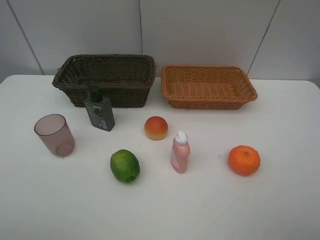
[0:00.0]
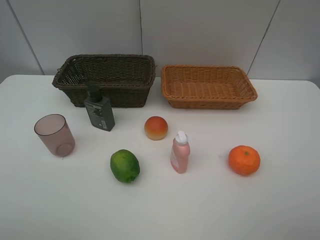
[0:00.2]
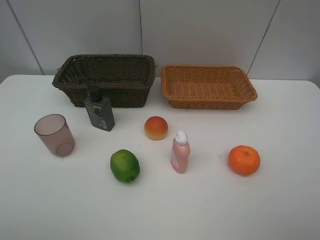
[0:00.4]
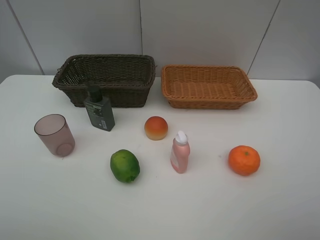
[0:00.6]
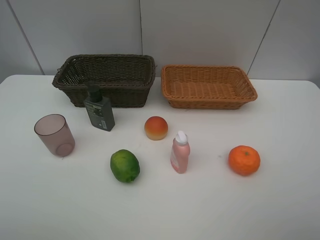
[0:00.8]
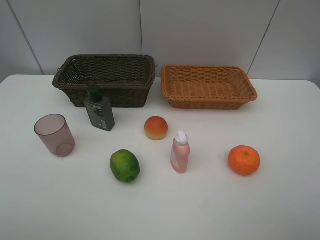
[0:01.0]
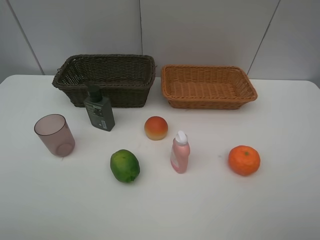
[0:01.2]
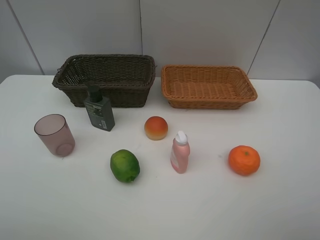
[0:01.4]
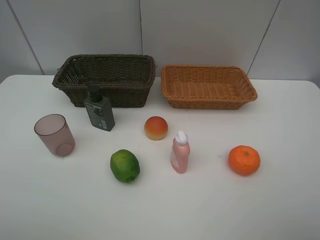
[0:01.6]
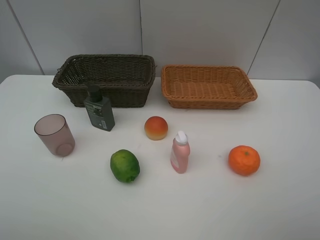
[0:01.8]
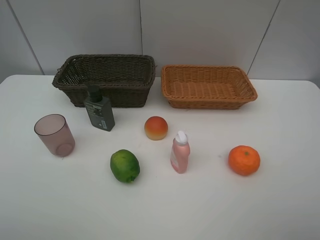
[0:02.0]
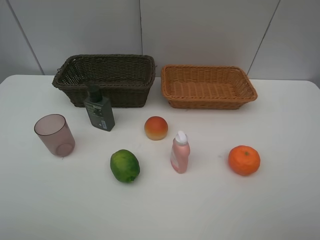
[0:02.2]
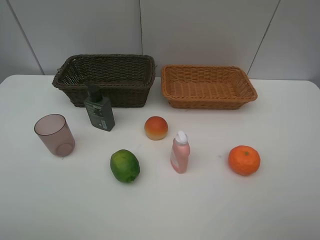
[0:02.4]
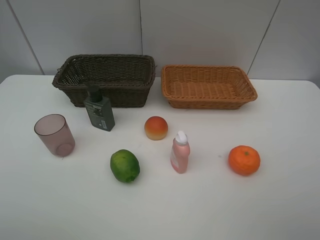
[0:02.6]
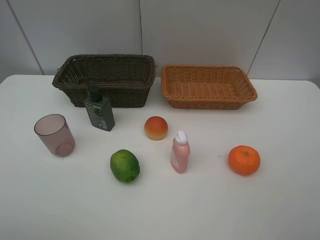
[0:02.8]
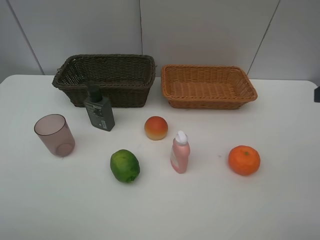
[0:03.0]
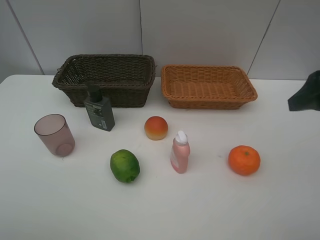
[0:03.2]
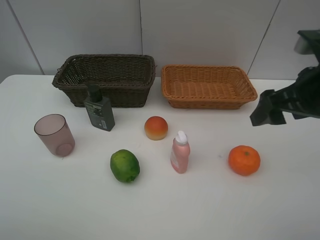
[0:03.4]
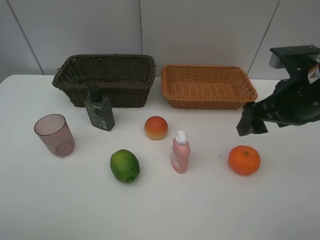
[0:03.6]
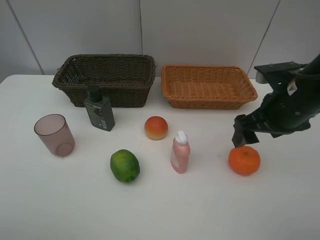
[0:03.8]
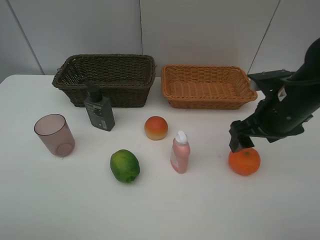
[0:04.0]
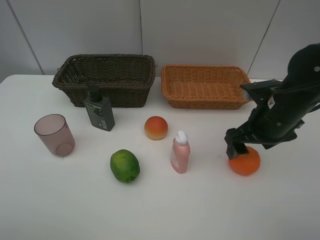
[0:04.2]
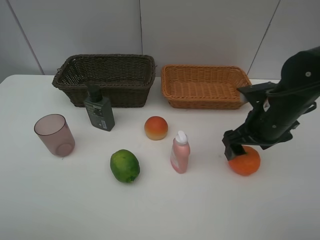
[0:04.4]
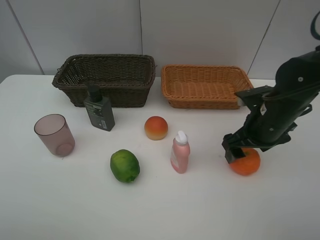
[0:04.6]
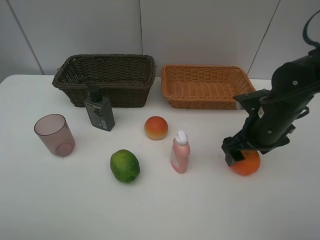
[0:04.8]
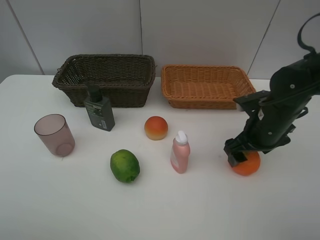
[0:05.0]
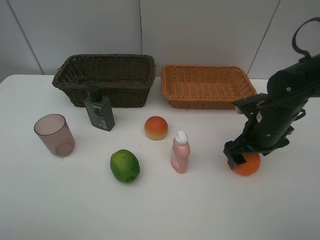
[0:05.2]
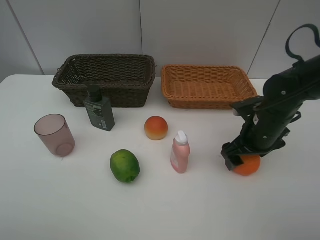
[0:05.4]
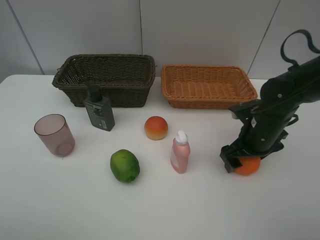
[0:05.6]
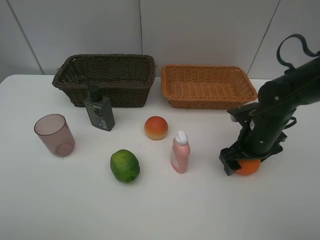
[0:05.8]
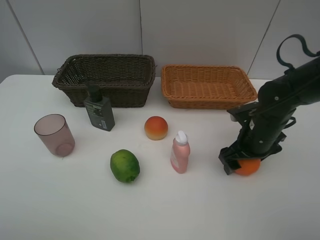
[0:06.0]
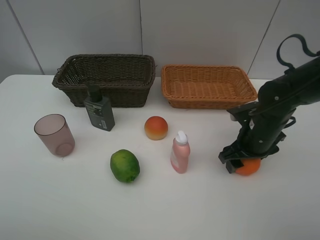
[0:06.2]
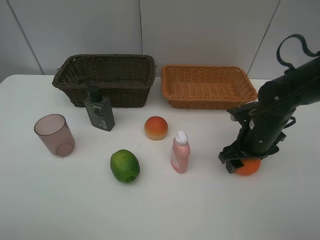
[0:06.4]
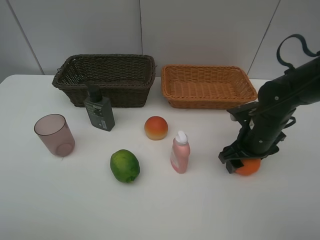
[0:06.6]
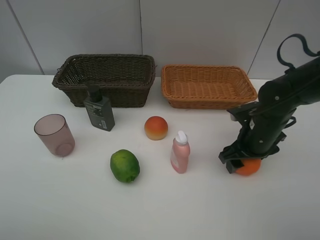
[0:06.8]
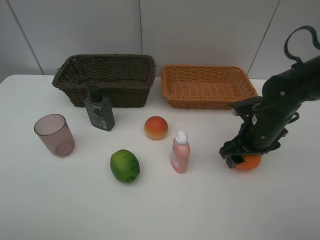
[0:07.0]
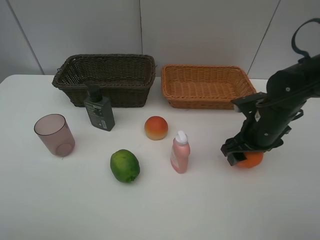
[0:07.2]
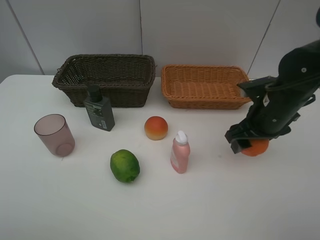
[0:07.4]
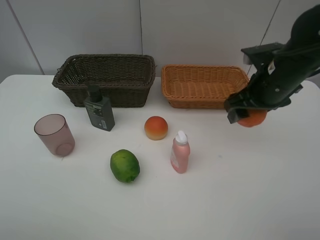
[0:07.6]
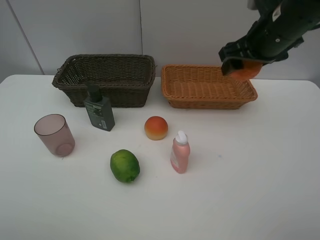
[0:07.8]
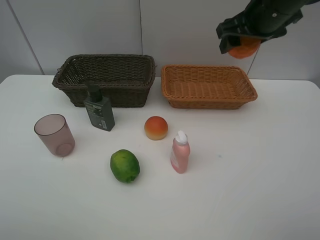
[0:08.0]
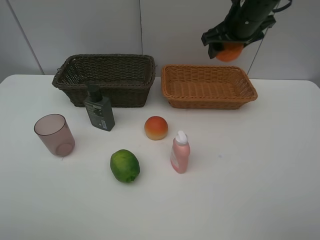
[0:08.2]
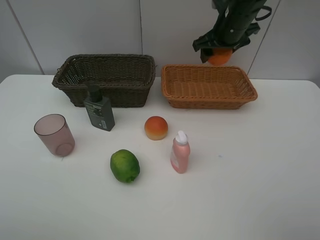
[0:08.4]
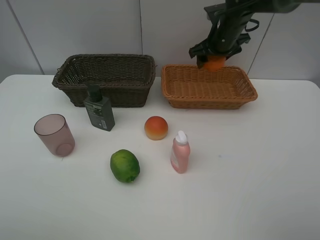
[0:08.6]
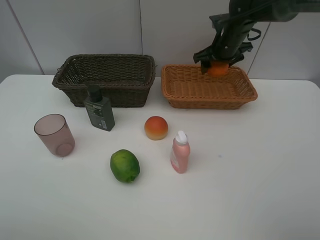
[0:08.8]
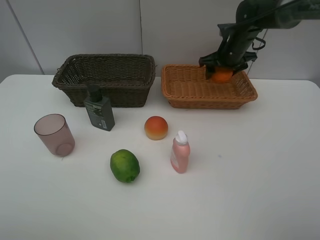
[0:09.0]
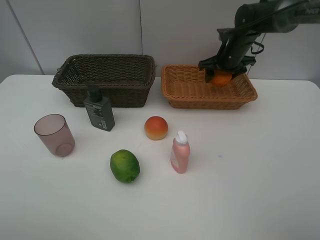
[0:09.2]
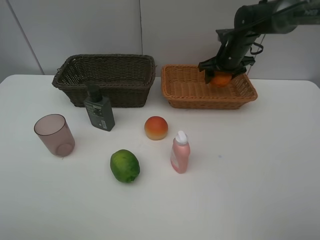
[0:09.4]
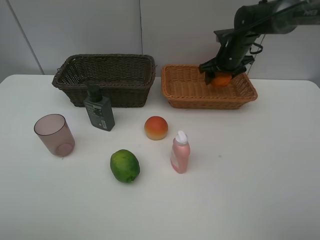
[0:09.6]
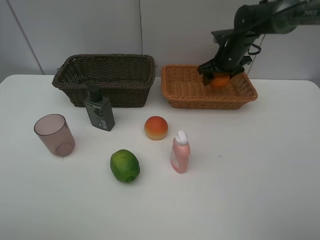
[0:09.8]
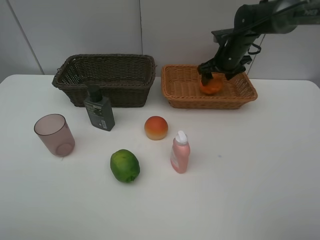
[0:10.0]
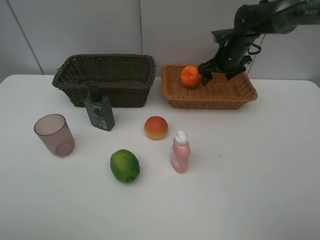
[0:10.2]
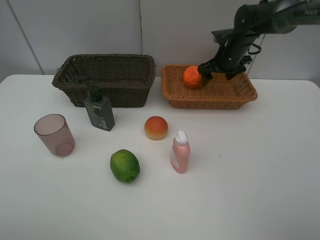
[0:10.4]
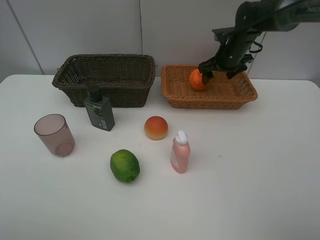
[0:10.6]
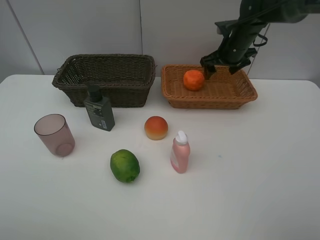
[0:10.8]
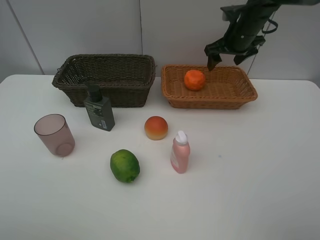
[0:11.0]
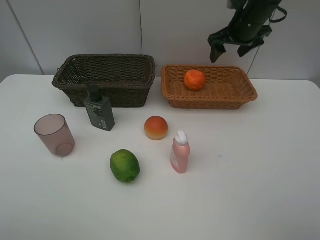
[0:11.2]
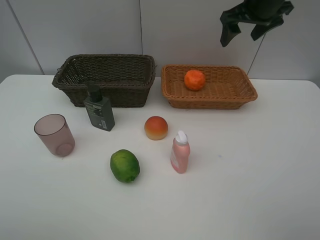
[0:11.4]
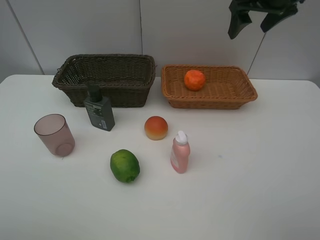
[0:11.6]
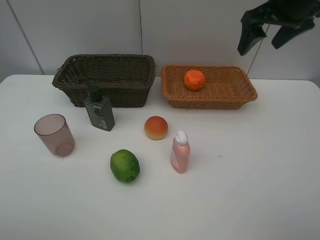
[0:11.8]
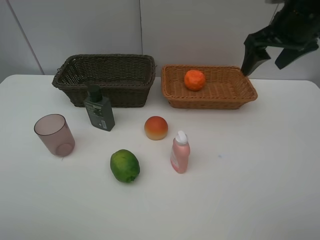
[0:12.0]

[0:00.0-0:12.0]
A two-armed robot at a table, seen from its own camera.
Task of the whole recording: place multiple objects separately in different baskets.
0:00.0 to 0:01.6: Neither gripper changes place.
0:03.0 to 0:04.4: The right gripper shifts approximately 20 cm downward, forward and to the left.
0:04.4 to 0:06.0: The right gripper is displaced downward by roughly 5 cm.
0:06.0 to 0:07.6: The right gripper is displaced upward by roughly 10 cm.
0:07.6 to 0:09.0: The right gripper is displaced forward by about 20 cm.
0:09.0 to 0:10.4: The grippers move only a little.
0:10.4 to 0:12.0: The right gripper goes roughly 20 cm backward and upward.

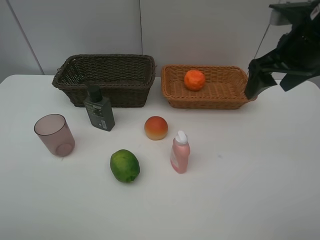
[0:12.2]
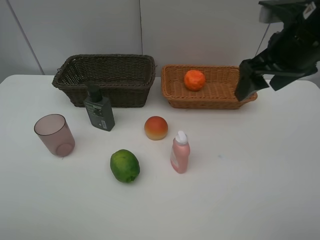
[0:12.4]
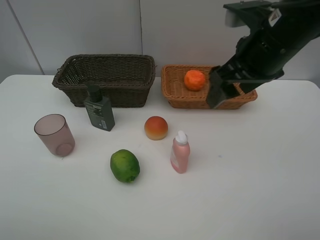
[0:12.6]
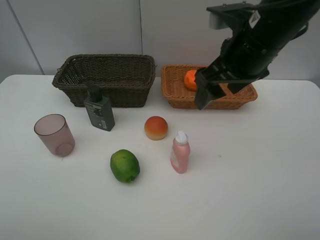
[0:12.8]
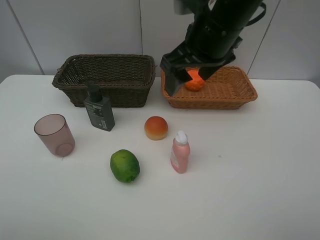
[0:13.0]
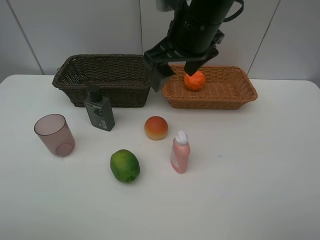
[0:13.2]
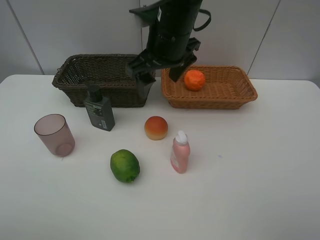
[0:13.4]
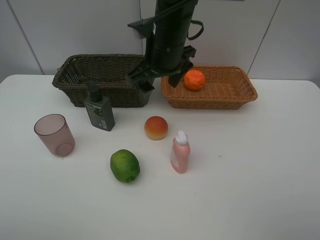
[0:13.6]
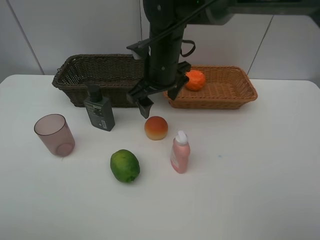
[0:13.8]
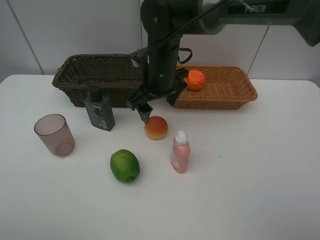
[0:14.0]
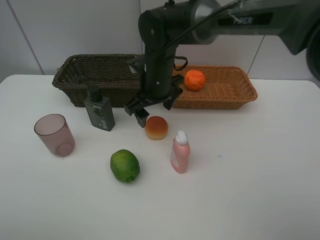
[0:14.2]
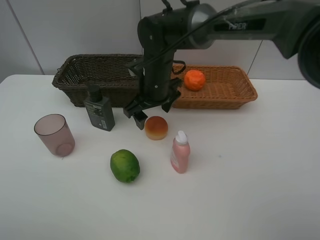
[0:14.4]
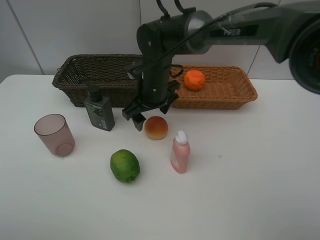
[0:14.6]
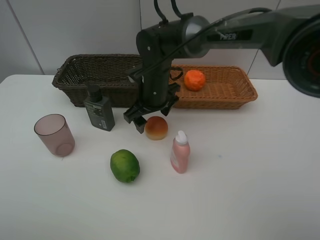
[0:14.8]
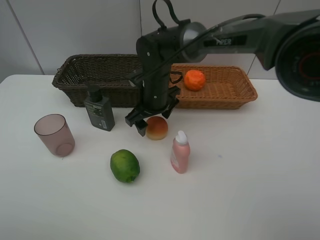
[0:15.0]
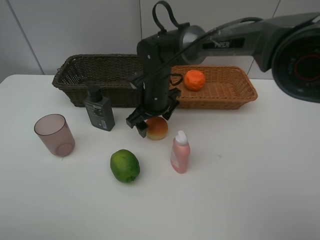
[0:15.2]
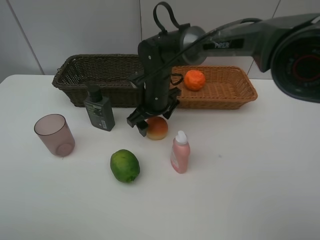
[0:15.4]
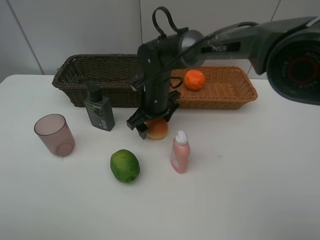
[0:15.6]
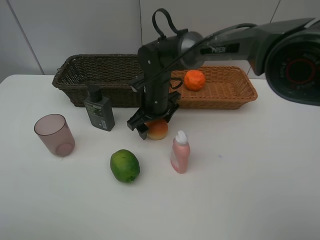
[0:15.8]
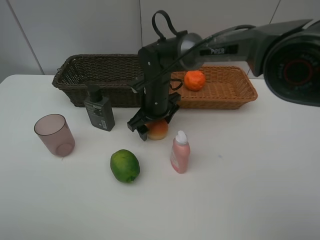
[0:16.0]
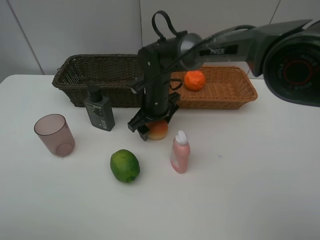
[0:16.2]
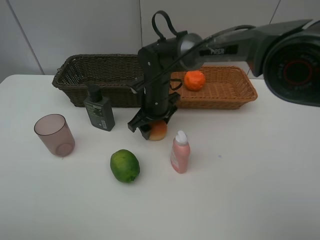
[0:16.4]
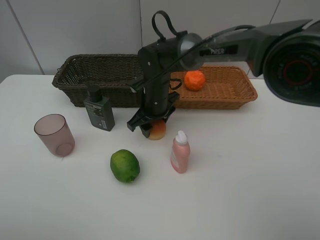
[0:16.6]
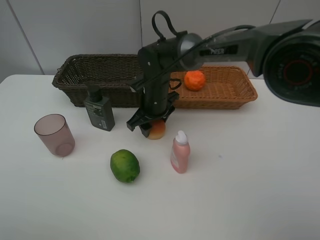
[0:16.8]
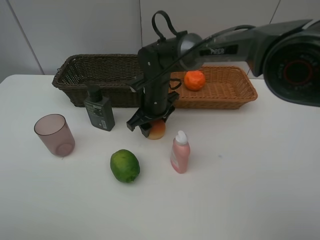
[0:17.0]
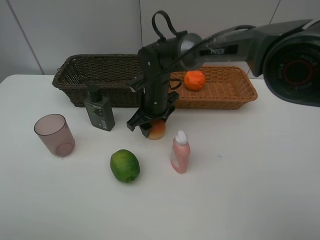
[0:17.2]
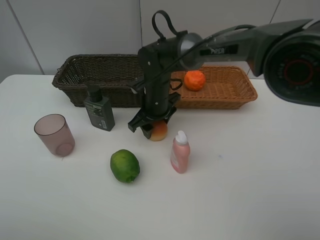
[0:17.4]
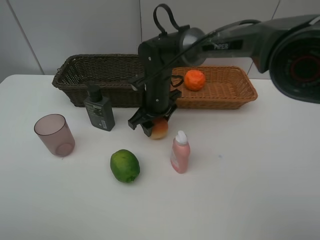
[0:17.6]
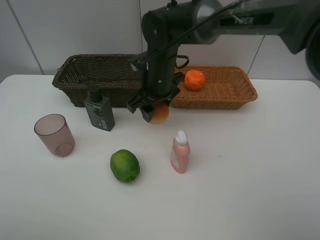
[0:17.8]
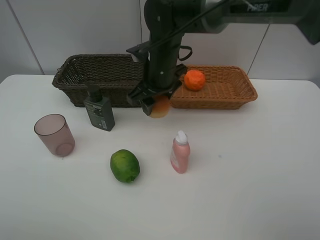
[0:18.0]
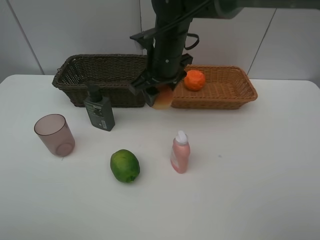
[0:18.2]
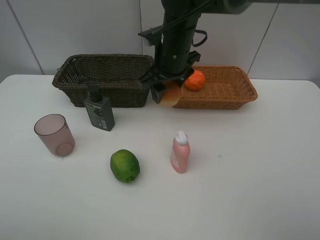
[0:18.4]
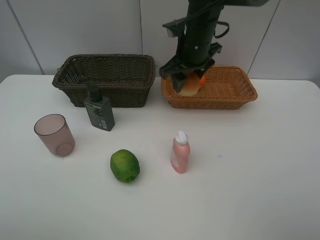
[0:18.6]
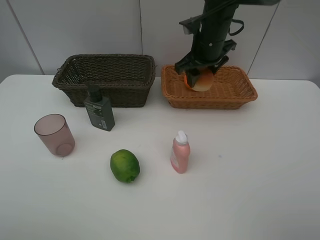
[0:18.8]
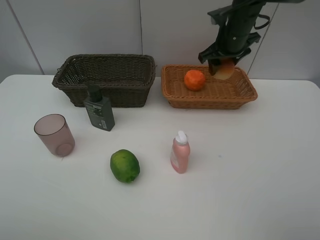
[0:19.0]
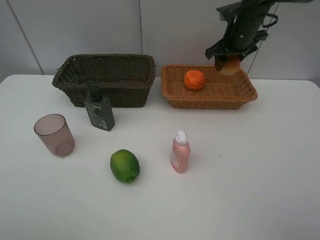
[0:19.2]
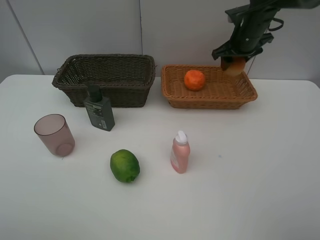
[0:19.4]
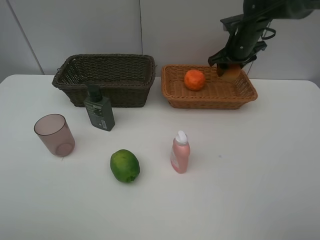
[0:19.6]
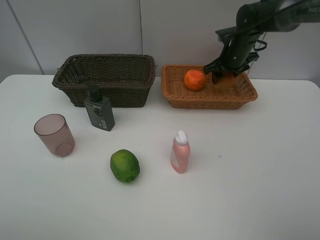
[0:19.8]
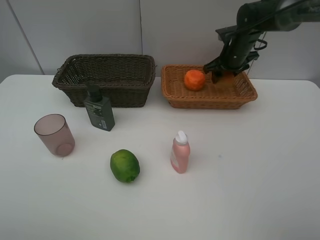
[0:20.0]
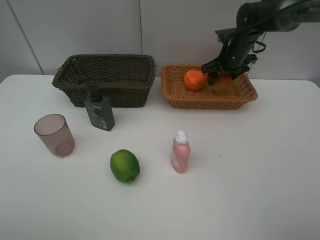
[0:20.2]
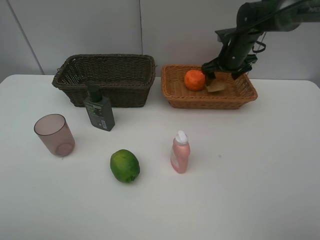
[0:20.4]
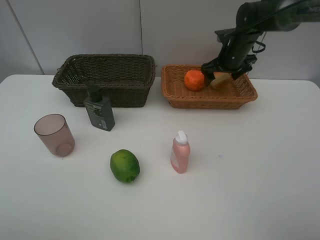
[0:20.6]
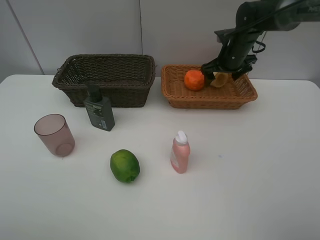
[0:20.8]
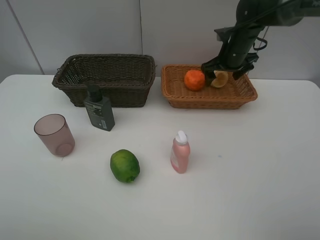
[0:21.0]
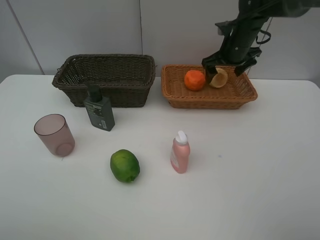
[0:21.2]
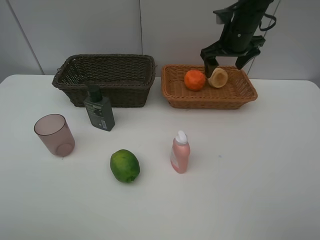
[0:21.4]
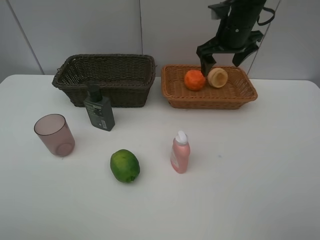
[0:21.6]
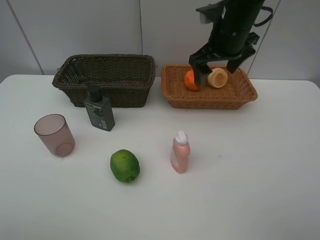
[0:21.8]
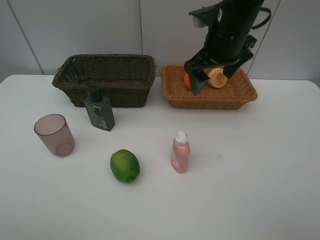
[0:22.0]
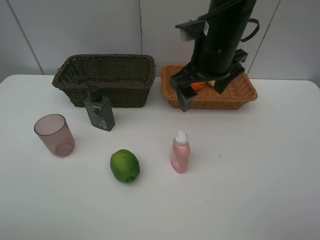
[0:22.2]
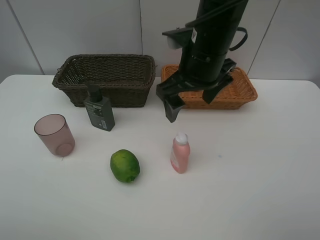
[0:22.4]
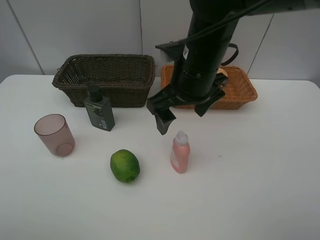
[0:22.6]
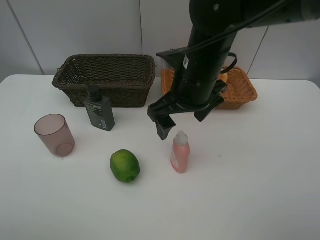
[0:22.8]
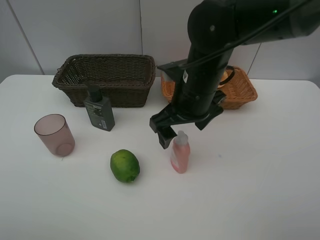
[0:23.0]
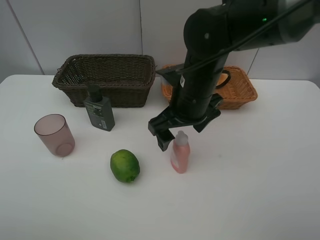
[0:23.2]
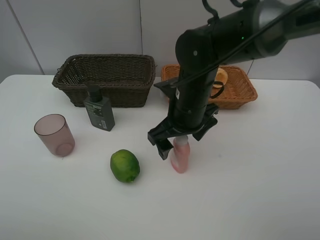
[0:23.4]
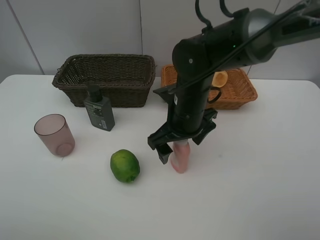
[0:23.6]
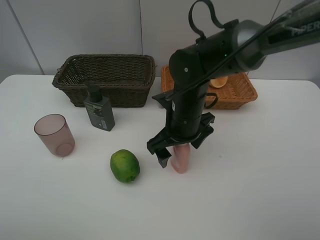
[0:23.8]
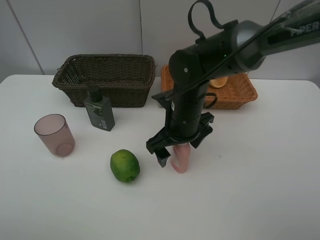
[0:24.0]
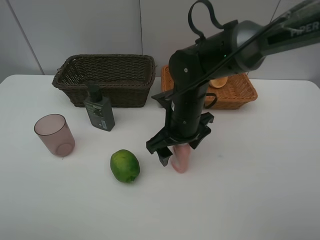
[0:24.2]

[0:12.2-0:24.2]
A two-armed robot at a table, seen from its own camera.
Task of the whole recording: place multiple objects separately in different baskets.
0:12.2 to 0:13.8: The right gripper heads to the left and downward, covering some 25 cm.
0:13.8 to 0:15.2: The right gripper shifts some 10 cm downward.
0:15.2 to 0:16.6: The right gripper closes its fingers.
0:16.6 to 0:18.2: The right gripper shifts about 10 cm upward.
0:18.2 to 0:19.8: The right gripper travels to the right and forward by about 25 cm.
0:19.8 to 0:21.2: The right gripper opens its fingers.
0:21.2 to 0:22.6: The right gripper is displaced backward and to the left by some 25 cm.
0:22.6 to 0:24.2: The right gripper heads downward, covering some 10 cm.
